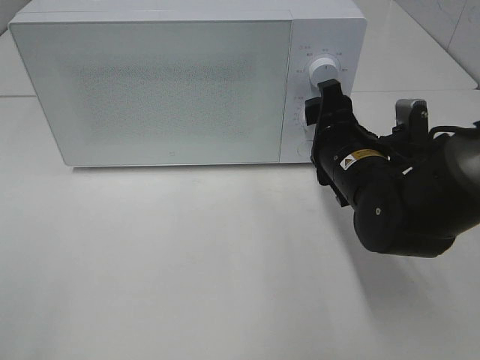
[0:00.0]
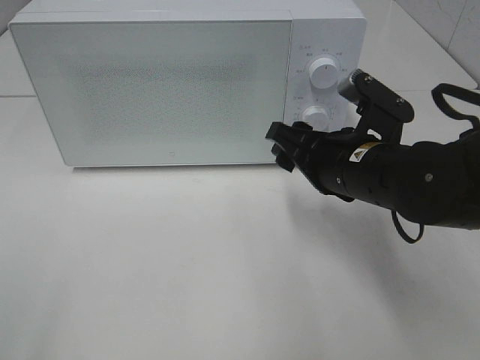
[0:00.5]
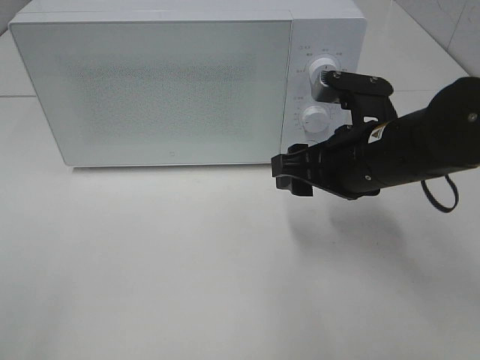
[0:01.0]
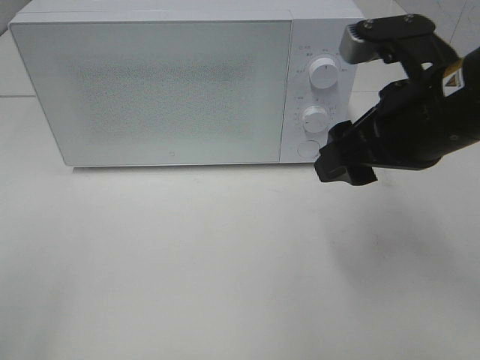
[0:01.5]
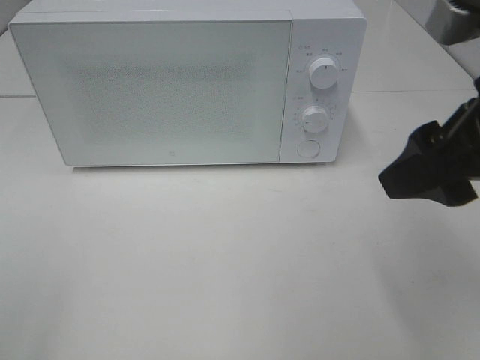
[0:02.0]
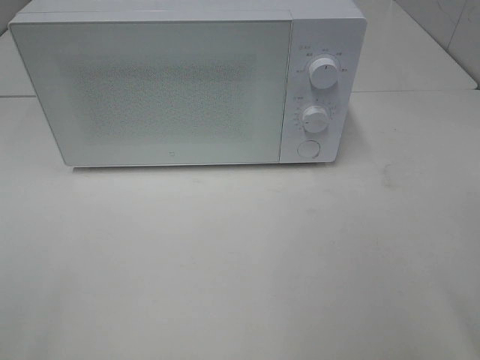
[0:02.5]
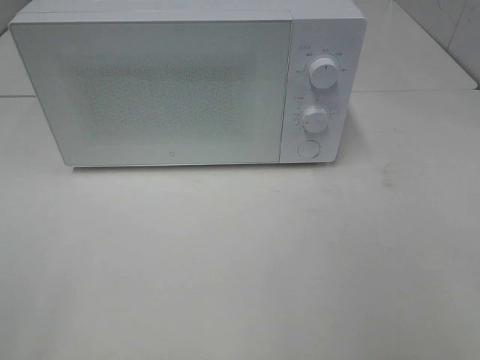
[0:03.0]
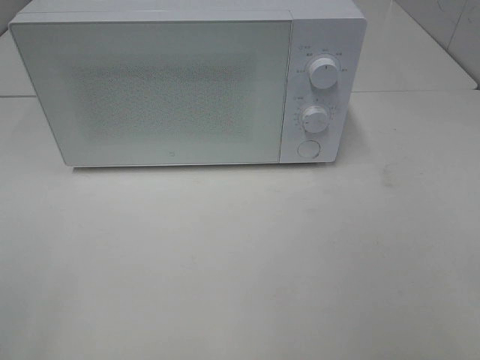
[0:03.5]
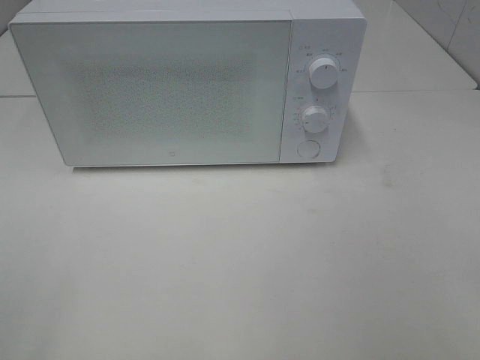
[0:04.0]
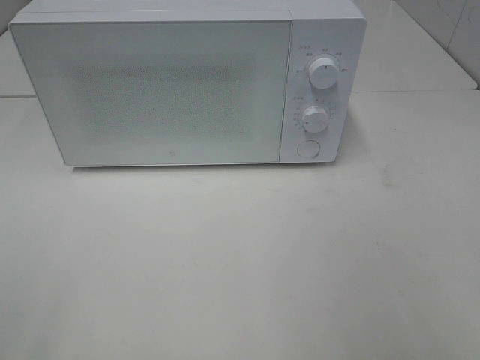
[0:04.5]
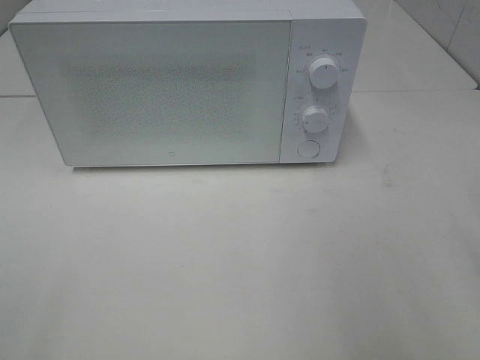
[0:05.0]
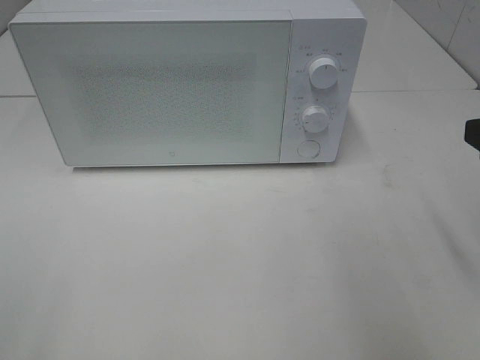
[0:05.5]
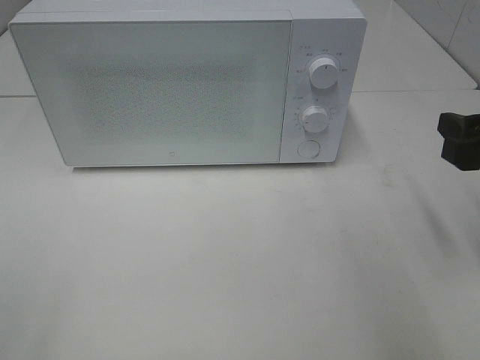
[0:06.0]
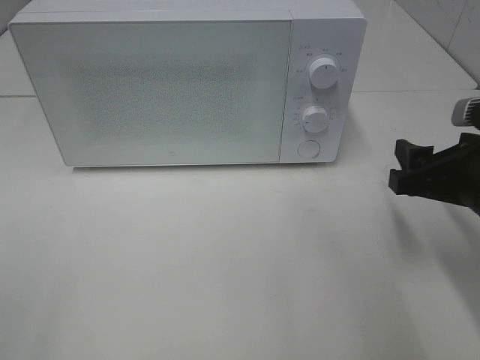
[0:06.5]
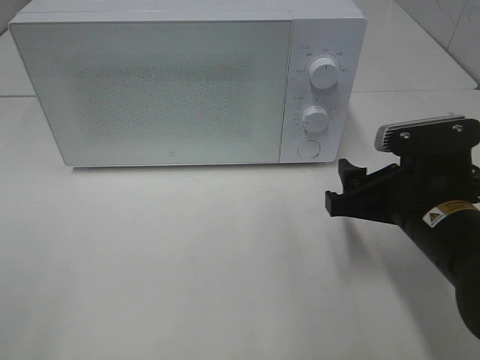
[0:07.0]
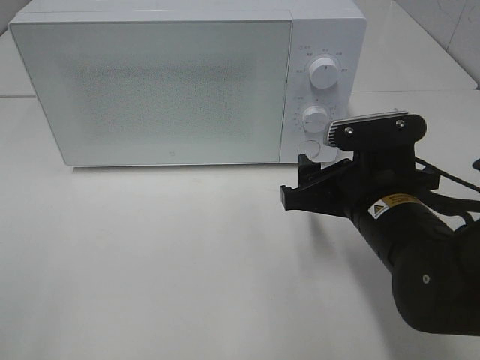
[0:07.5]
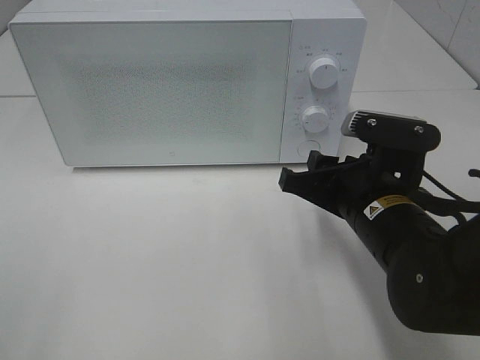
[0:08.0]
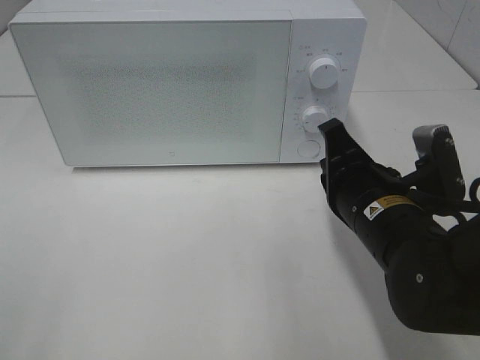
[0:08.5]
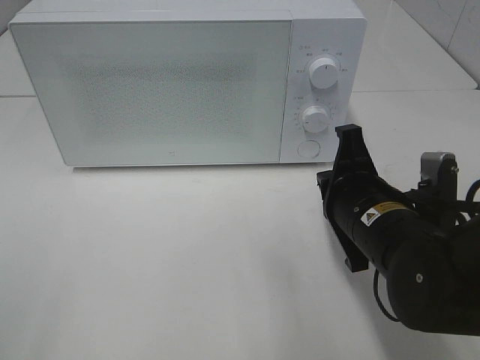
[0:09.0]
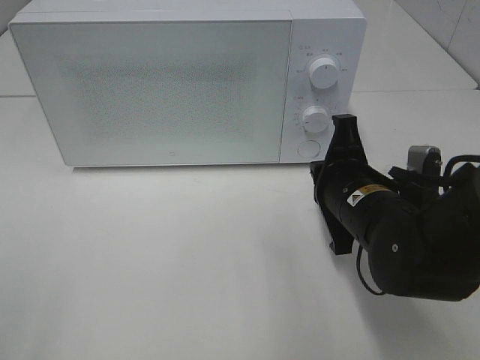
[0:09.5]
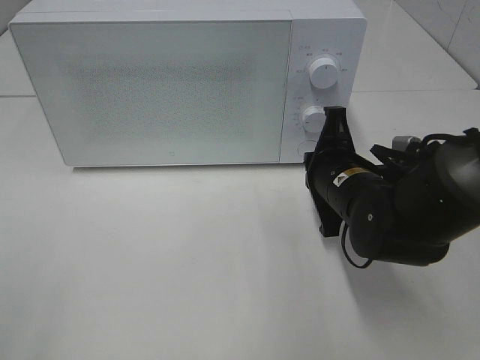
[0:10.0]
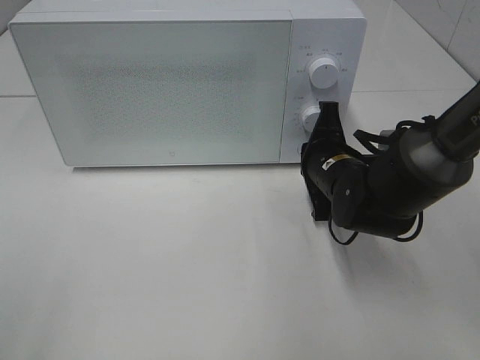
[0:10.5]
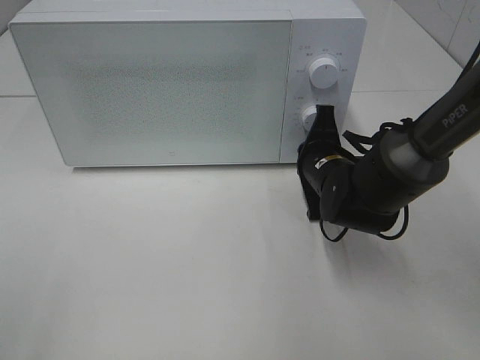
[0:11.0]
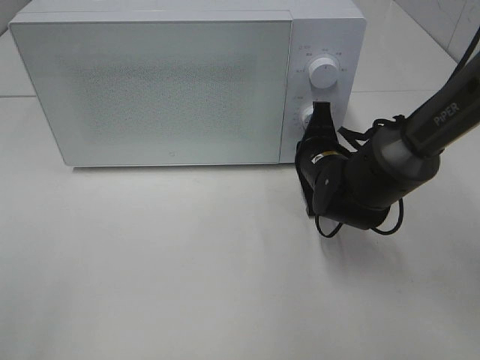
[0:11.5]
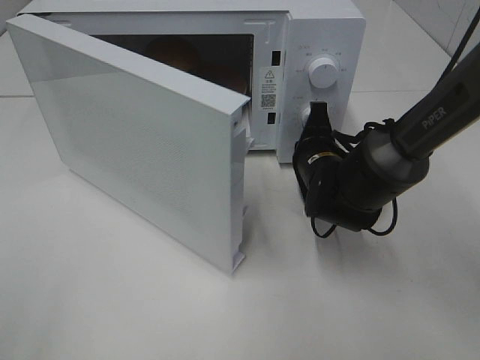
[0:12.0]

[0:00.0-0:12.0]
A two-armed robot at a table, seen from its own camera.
Task of the whole recording: Heat the burger.
0:00.0 to 0:02.0: The right gripper goes approximately 20 cm upward and backward.
0:02.0 to 0:04.0: The right gripper goes approximately 20 cm backward and to the right.
0:04.0 to 0:06.0: The right gripper goes roughly 20 cm forward.
0:06.0 to 0:08.0: The right gripper heads to the left and downward, covering some 15 cm.
0:08.0 to 0:10.0: The right gripper travels forward by roughly 5 cm, and closes its fingers.
0:10.0 to 0:12.0: The right gripper is displaced forward by some 5 cm.

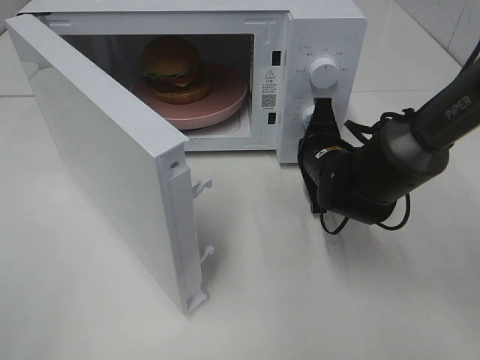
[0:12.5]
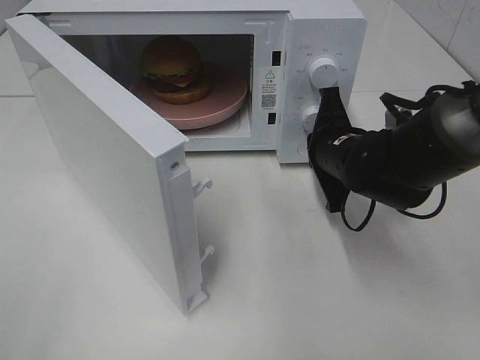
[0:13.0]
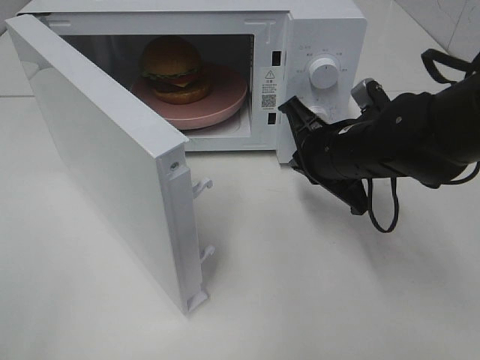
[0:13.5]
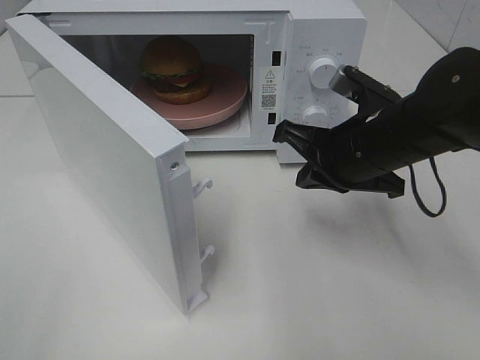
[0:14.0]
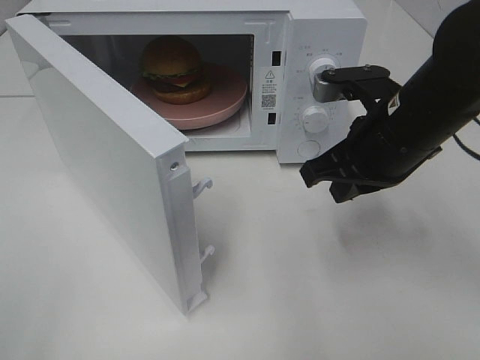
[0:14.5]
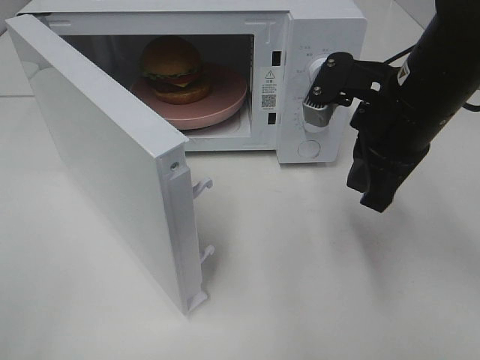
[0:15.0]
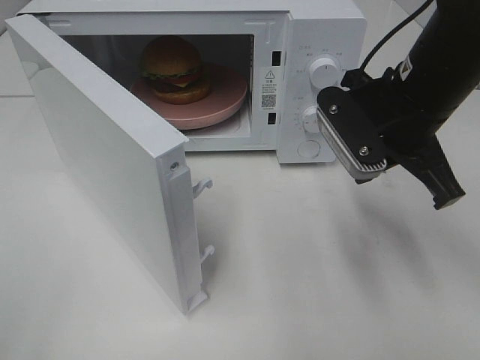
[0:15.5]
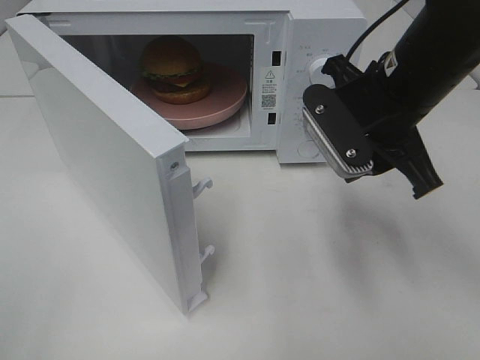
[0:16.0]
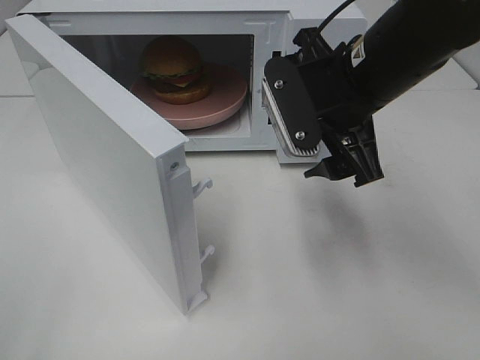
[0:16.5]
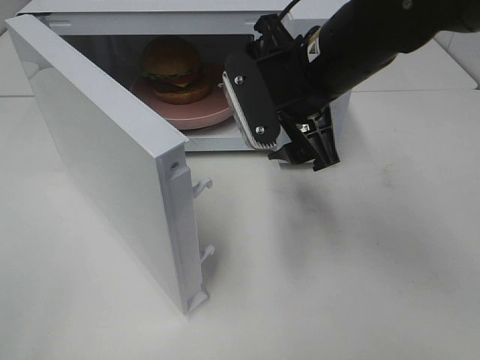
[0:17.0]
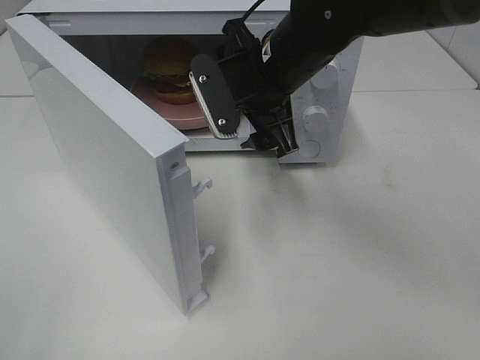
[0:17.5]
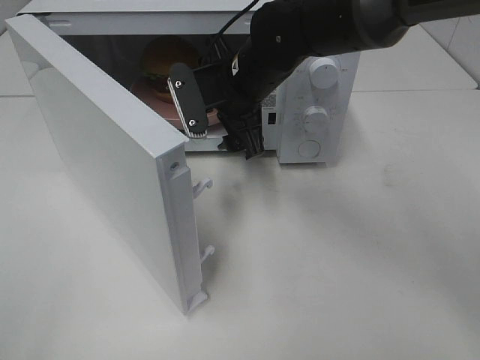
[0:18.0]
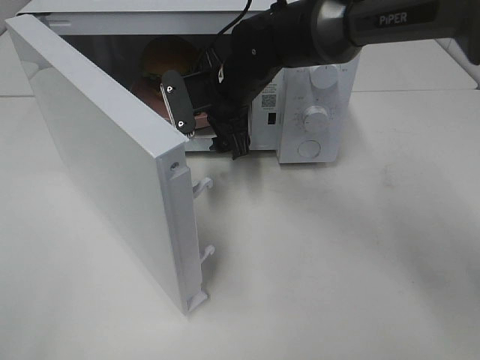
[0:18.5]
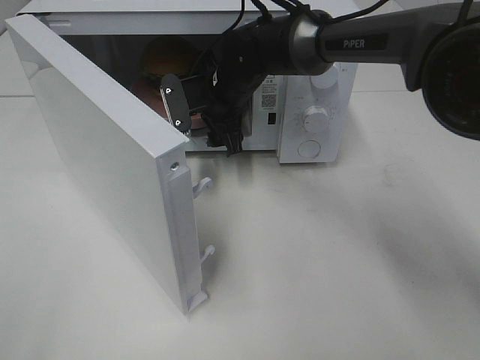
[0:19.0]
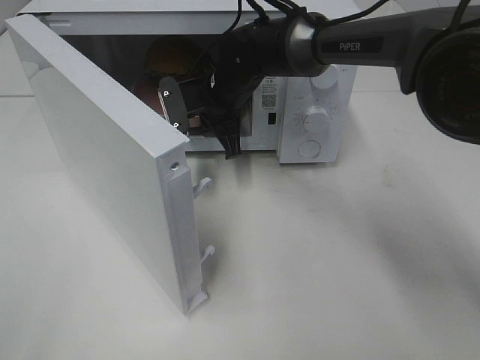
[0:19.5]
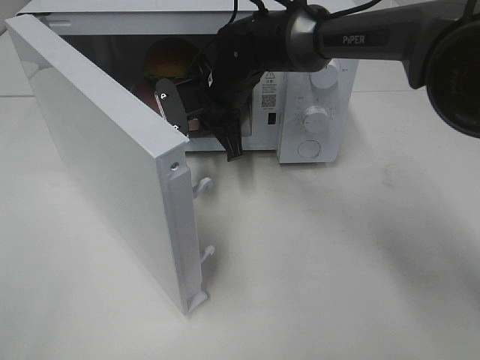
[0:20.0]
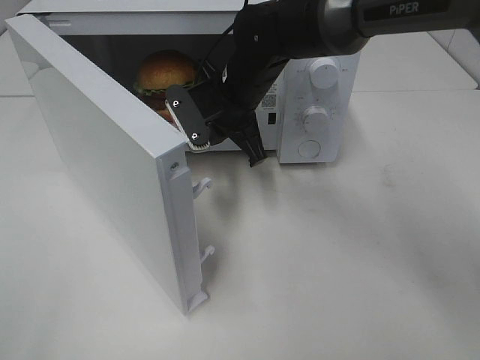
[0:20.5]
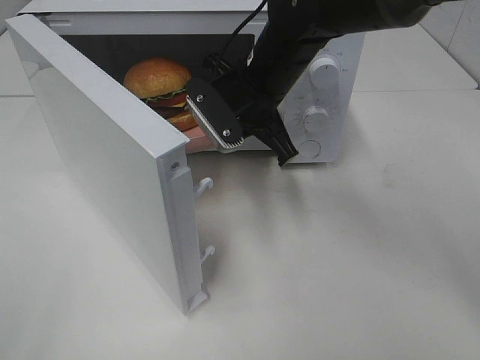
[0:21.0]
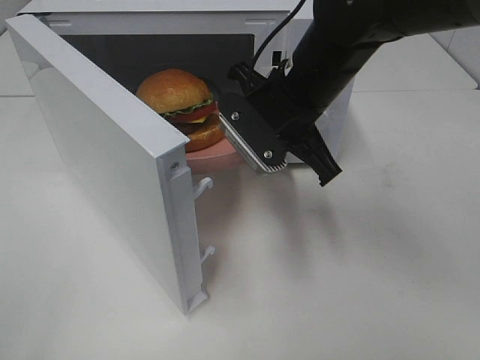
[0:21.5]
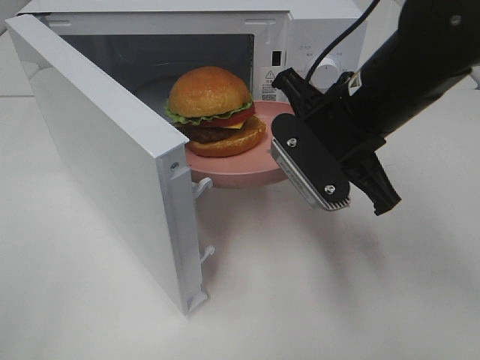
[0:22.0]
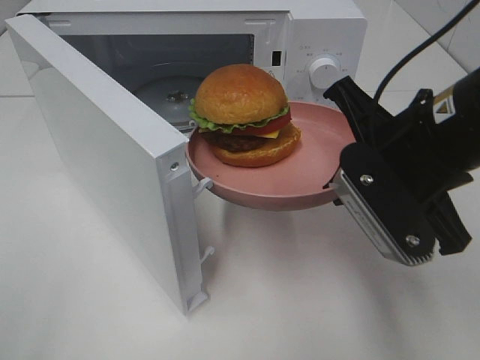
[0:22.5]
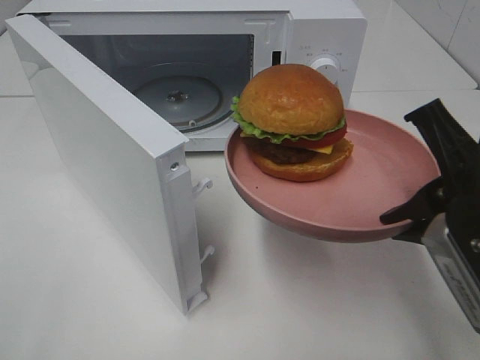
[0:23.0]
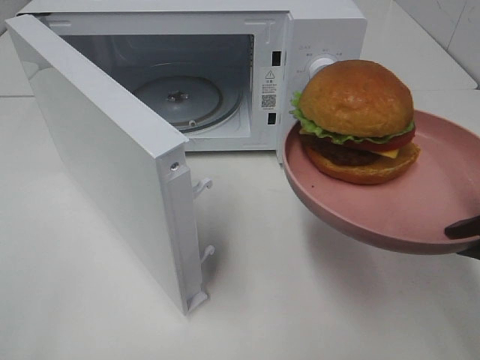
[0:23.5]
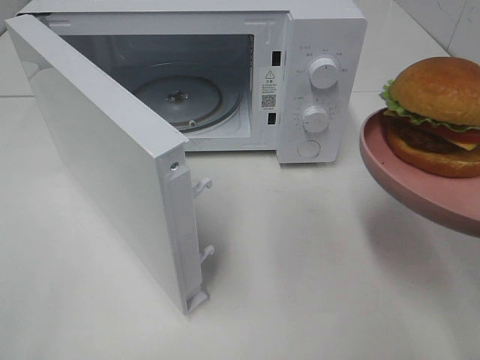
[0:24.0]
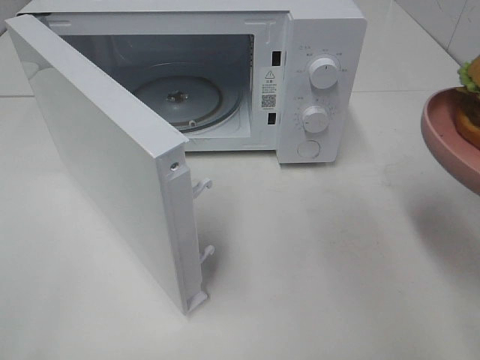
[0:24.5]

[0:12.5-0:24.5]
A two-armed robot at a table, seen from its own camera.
Task of the whole recording: Heat the burger.
Step, 0:13.0 to 0:19.0: Right hand: grab the plate with the hamburger.
0:12.5 to 0:14.5: The right gripper shifts some 15 cm upward and backward.
0:14.5 to 0:16.5: The right gripper moves approximately 5 cm, and opens.
0:16.5 to 0:18.5: The right gripper is displaced forward, to the left and downward by about 20 cm.
0:18.5 to 0:20.5: The right gripper closes its fingers.
0:20.5 to 0:22.5: The right gripper heads backward and to the right, covering approximately 25 cm.
0:22.5 to 0:24.5: The right gripper moves to the right and backward, roughly 15 cm.

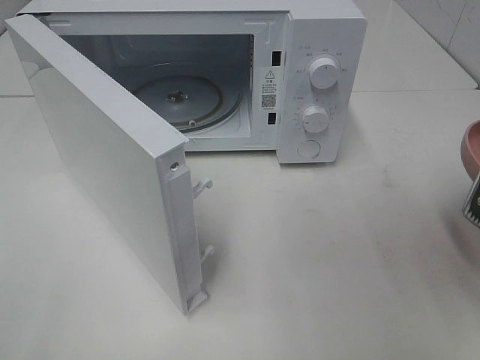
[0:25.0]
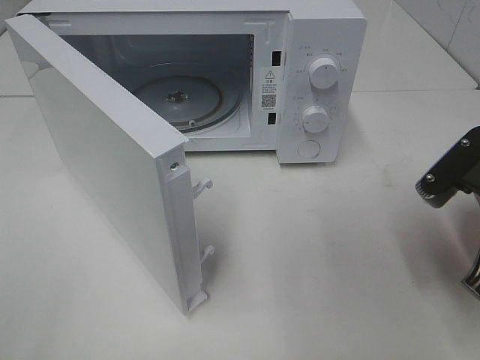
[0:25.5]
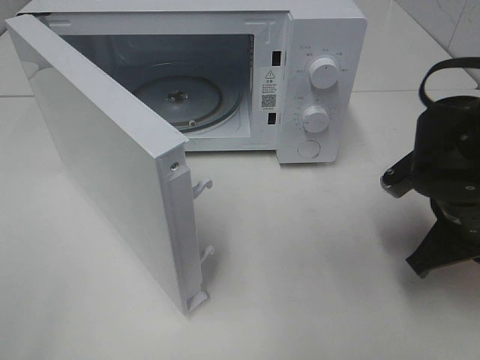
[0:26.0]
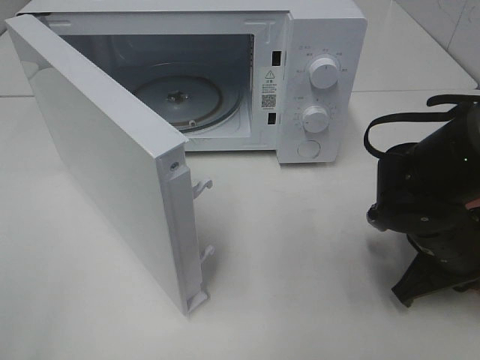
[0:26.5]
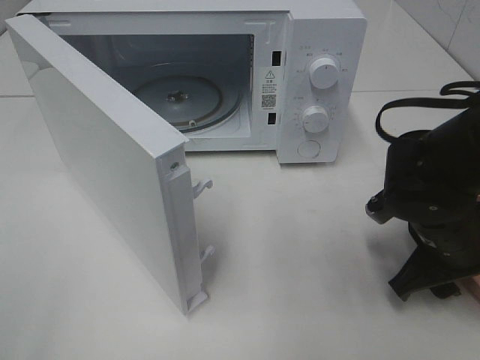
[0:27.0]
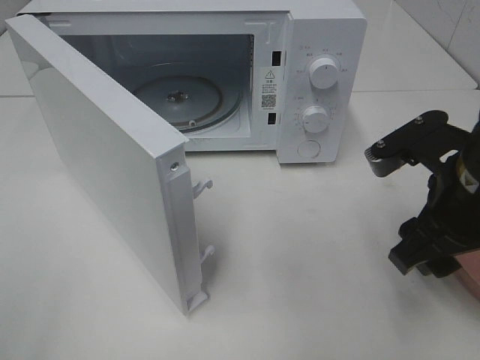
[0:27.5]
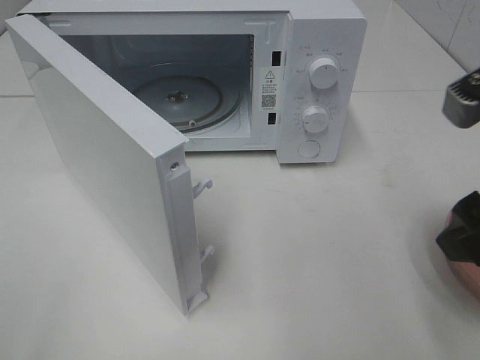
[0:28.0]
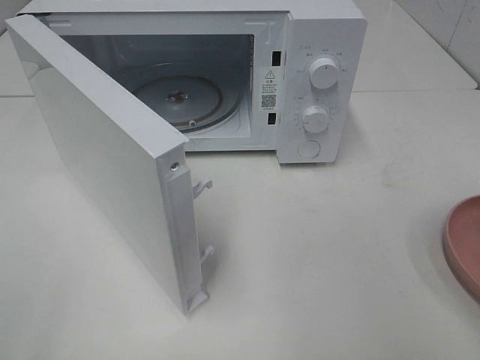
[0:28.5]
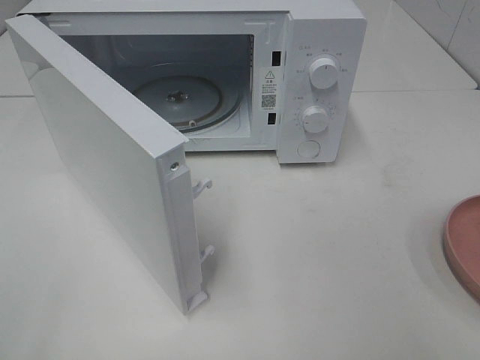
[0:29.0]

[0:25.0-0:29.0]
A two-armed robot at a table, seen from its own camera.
Task of the whole recording: Heat the burger.
0:25.0 to 0:27.0: The right gripper shifts roughly 15 cm downward and forward, and opens.
0:27.0 to 0:29.0: The right gripper travels upward, backward and to the right by roughly 30 cm.
